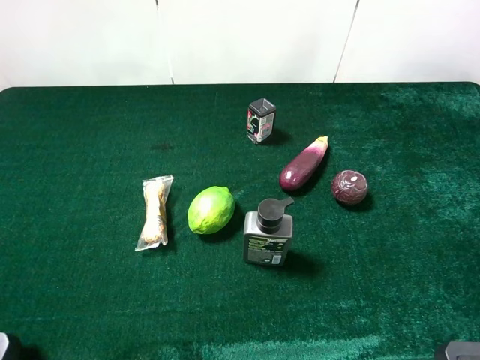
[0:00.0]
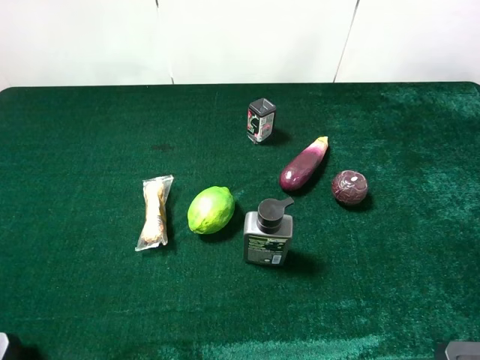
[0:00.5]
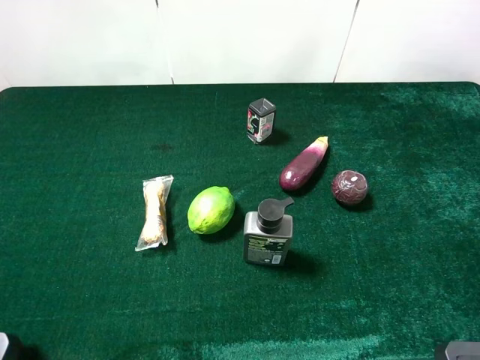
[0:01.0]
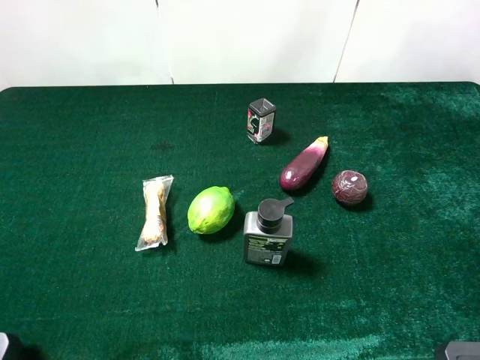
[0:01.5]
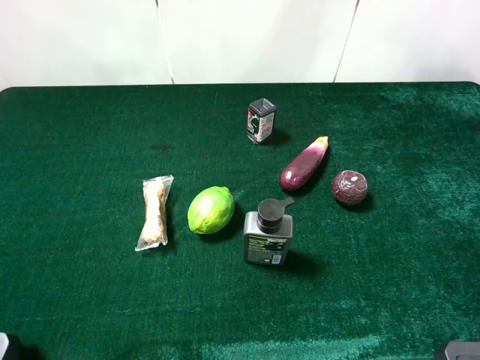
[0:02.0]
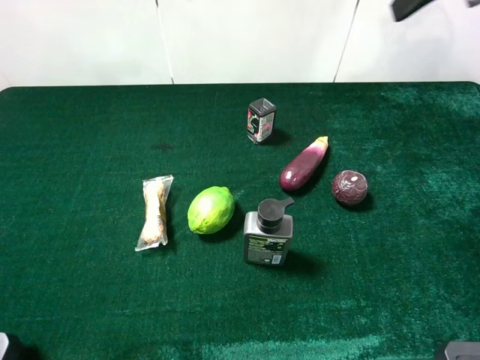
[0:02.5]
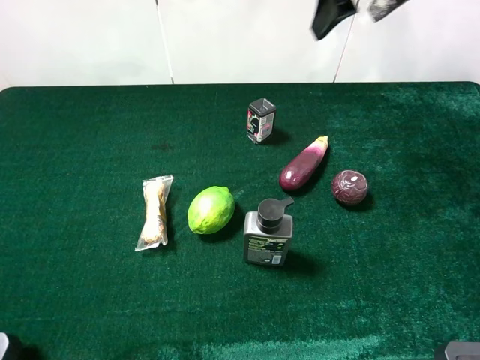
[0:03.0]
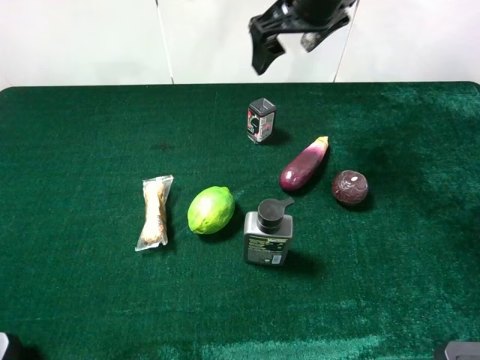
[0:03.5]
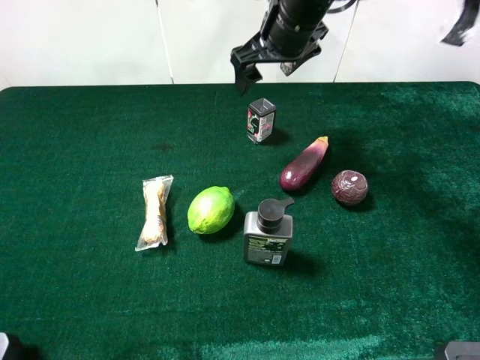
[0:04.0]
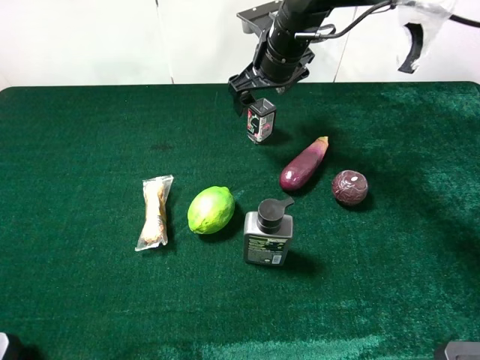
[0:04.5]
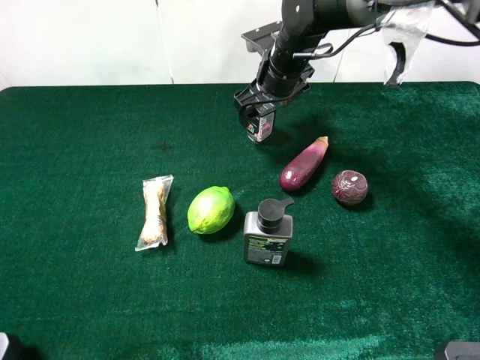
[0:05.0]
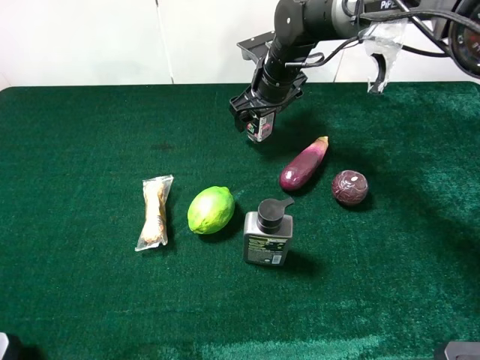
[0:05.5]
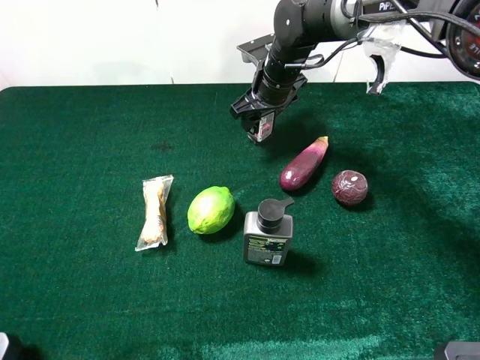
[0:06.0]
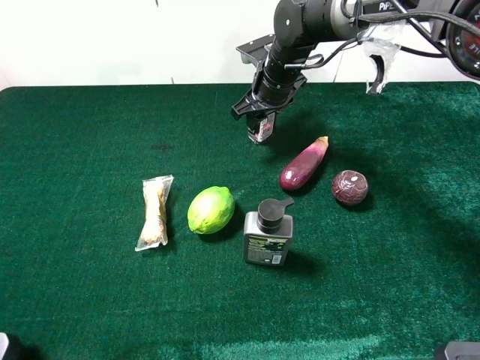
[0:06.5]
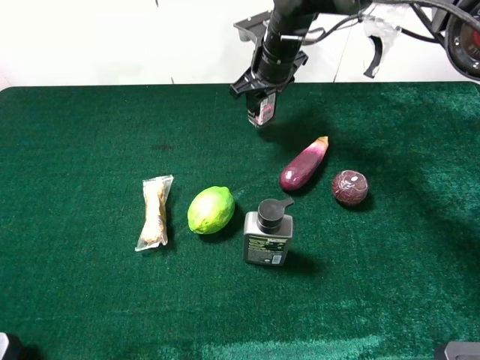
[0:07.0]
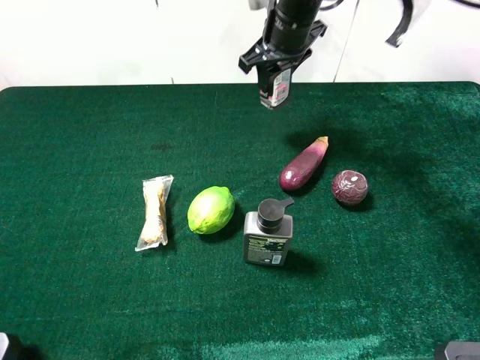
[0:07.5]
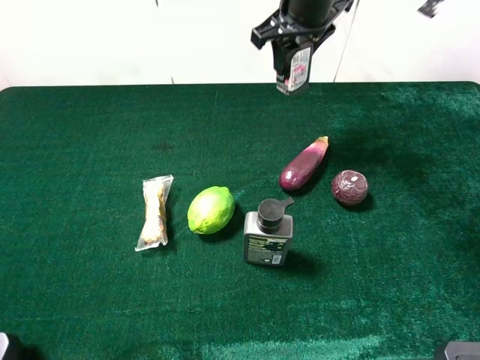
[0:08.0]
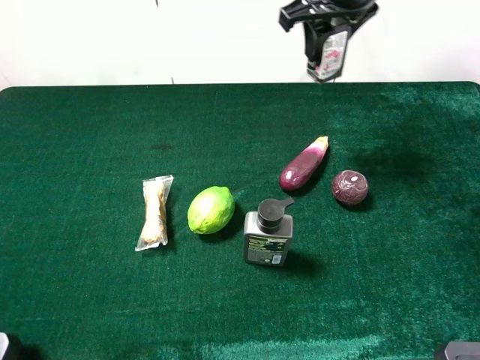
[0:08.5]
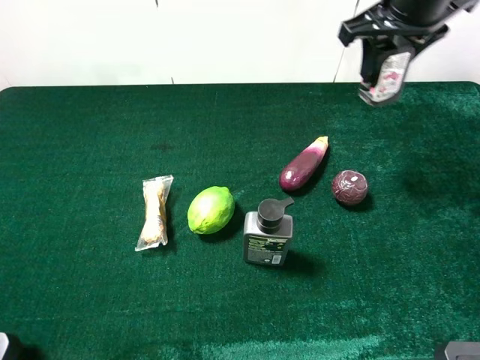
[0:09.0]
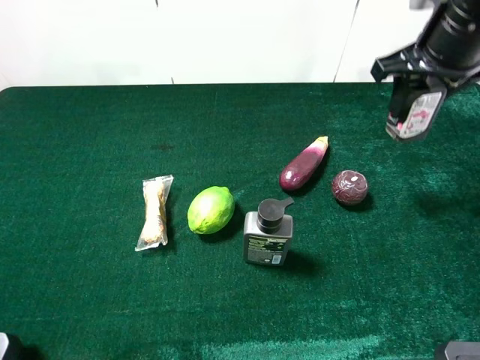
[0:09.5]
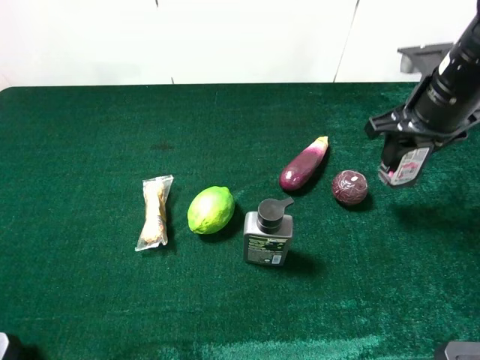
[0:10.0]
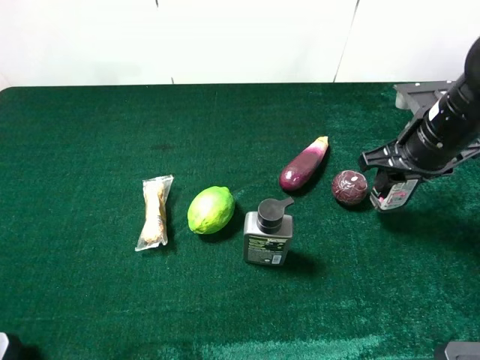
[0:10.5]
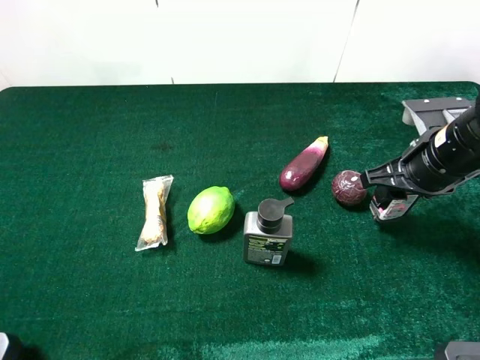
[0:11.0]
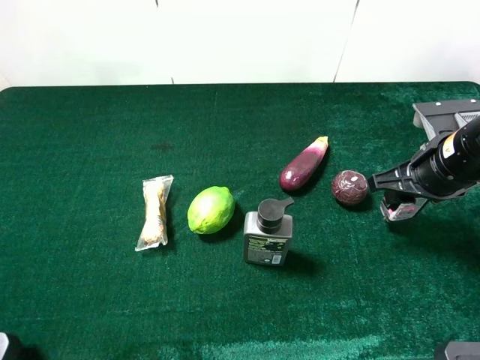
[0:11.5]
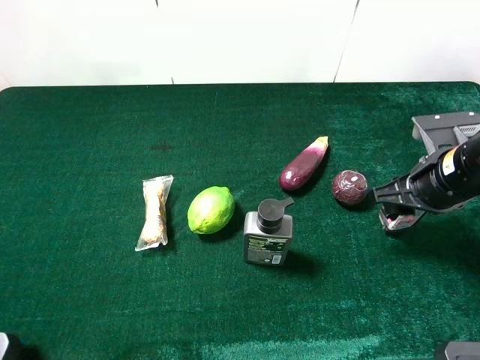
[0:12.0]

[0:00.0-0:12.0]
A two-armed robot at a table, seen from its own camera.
Task of the whole recording: the gripper move the object.
Step, 0:00.0 to 0:06.5: Grasp the square chewing gun with the right gripper.
0:02.0 to 0:04.0: The right gripper travels to the left, forward and downward by about 35 cm.
0:04.0 to 0:06.0: The right gripper heads downward, covering about 10 cm, and closes up.
0:06.0 to 0:08.0: The right gripper is displaced upward by about 15 cm.
0:08.0 to 0:10.0: The right gripper goes about 20 cm to the right and backward.
0:10.0 to 0:12.0: The right gripper moves downward and backward, some 10 cm.

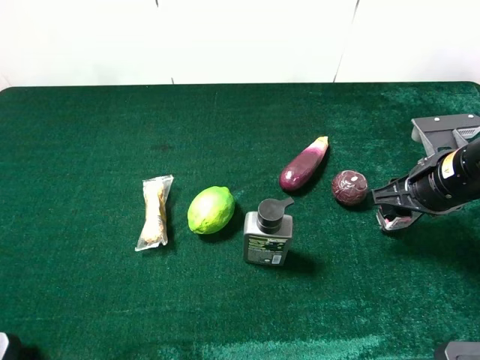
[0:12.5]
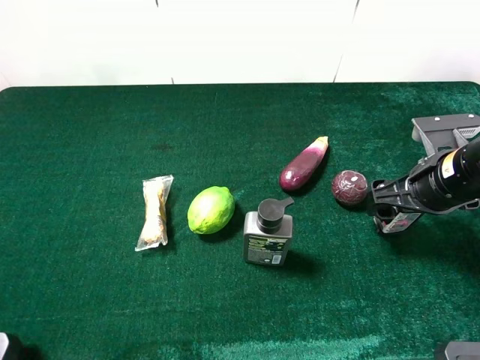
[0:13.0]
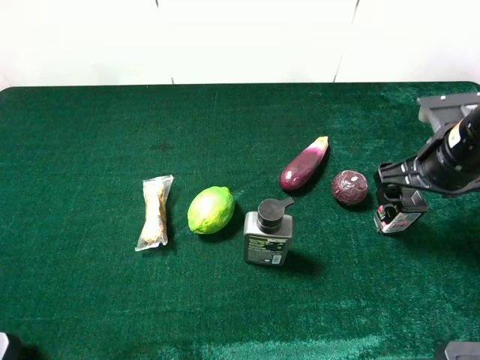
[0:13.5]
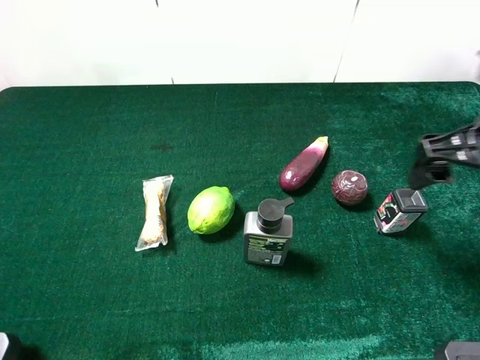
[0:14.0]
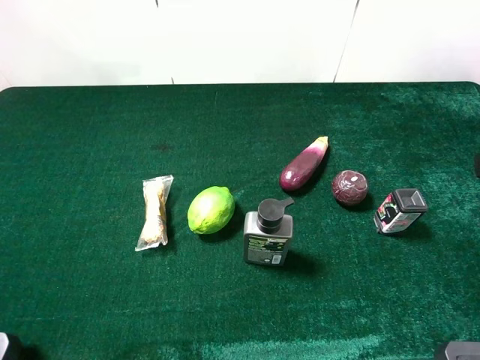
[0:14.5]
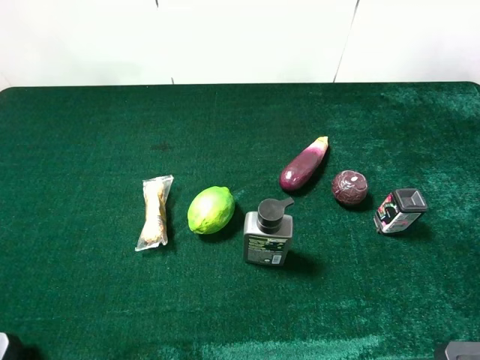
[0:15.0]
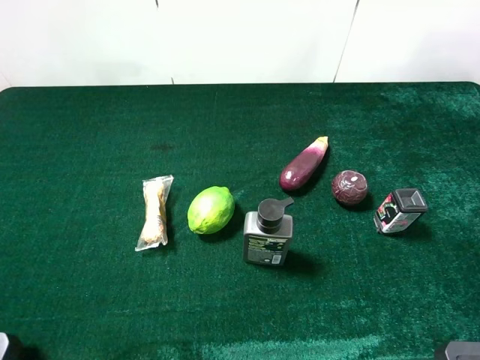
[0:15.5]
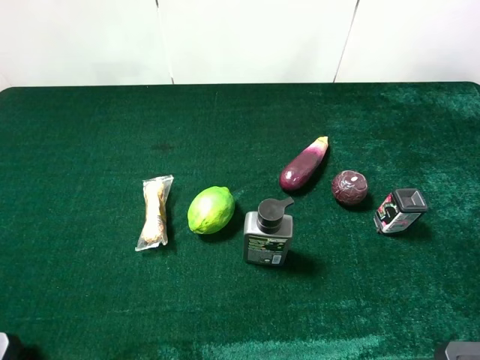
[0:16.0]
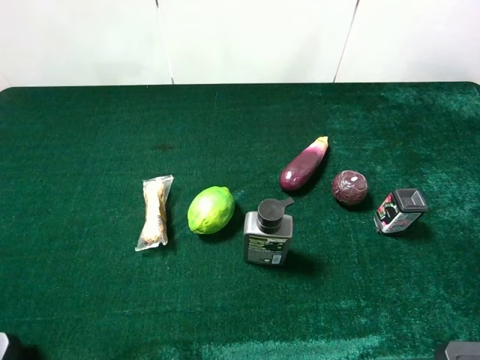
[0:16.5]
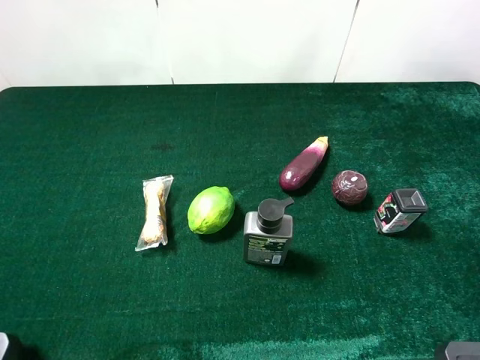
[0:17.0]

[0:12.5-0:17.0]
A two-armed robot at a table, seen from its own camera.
Task of the whole recording: the gripper move the object.
0:12.5 to 0:14.5: The right gripper travels upward and backward by roughly 20 cm, and opens up.
